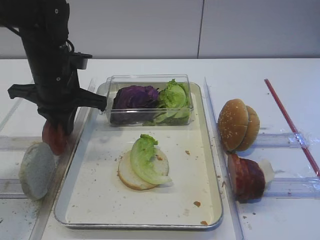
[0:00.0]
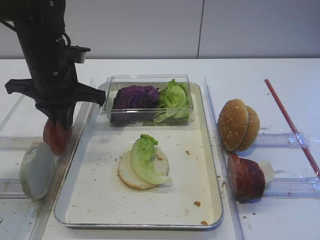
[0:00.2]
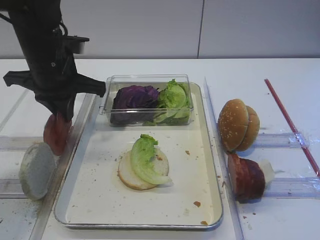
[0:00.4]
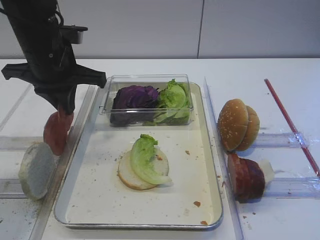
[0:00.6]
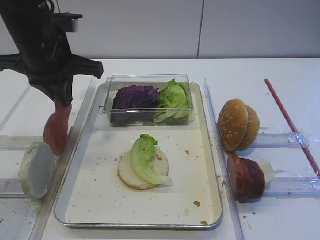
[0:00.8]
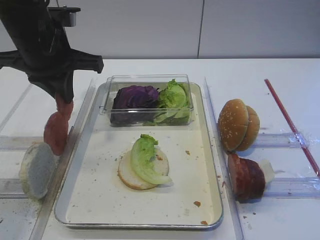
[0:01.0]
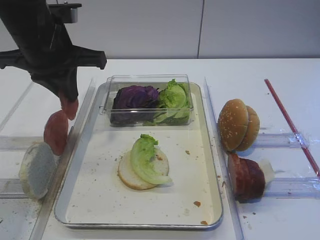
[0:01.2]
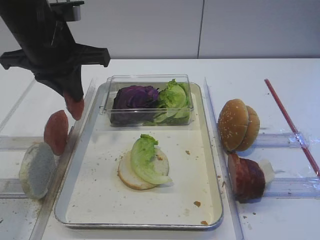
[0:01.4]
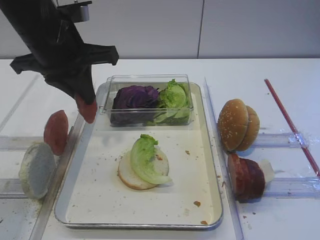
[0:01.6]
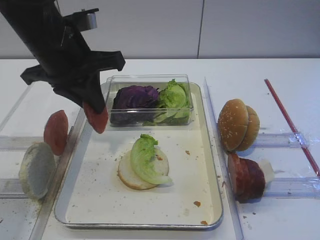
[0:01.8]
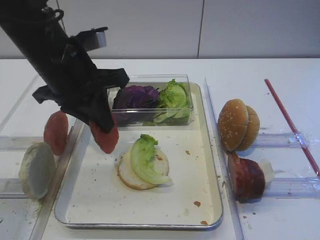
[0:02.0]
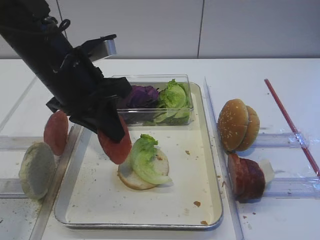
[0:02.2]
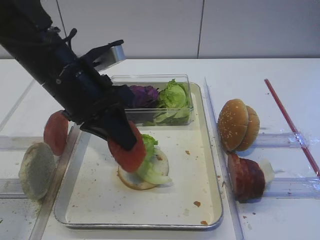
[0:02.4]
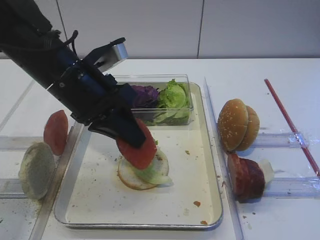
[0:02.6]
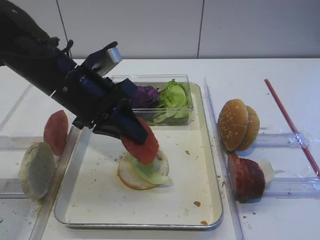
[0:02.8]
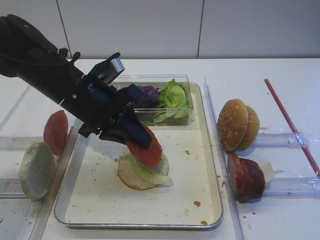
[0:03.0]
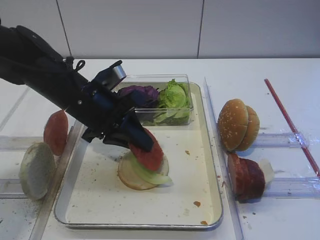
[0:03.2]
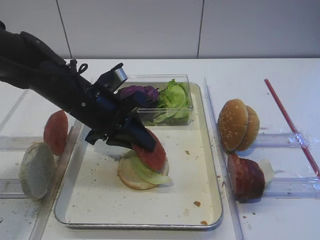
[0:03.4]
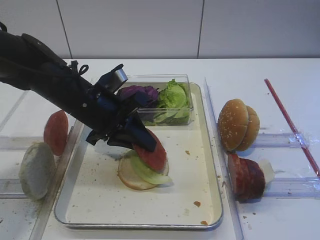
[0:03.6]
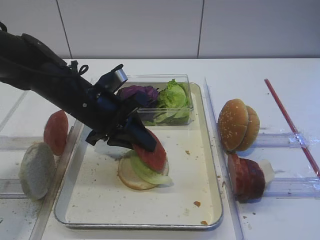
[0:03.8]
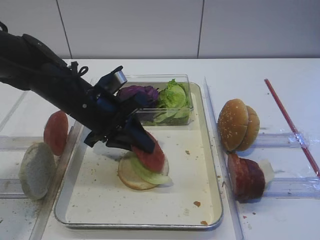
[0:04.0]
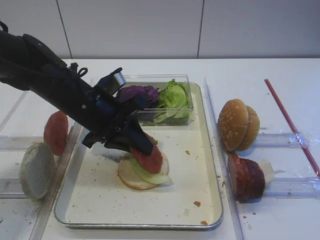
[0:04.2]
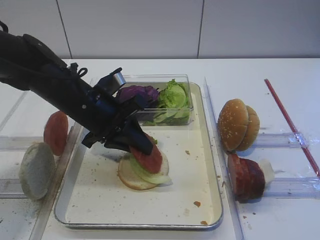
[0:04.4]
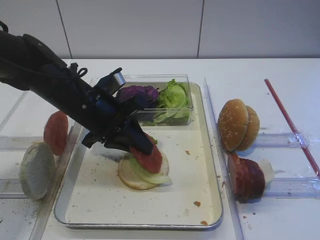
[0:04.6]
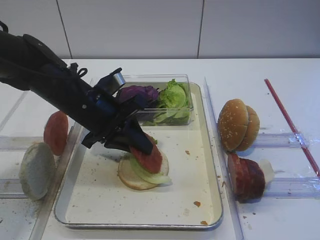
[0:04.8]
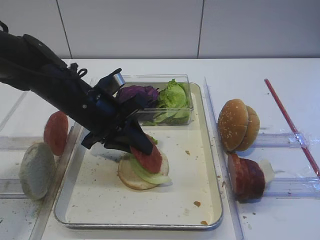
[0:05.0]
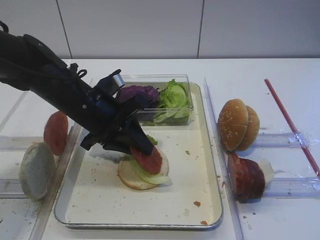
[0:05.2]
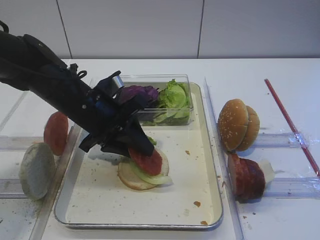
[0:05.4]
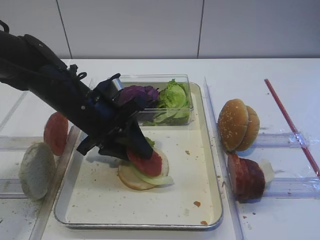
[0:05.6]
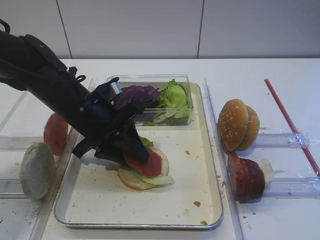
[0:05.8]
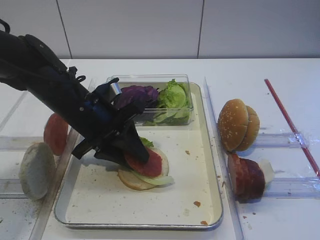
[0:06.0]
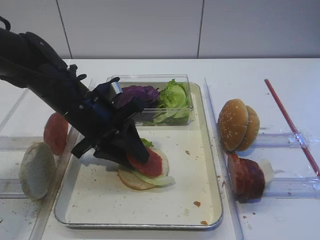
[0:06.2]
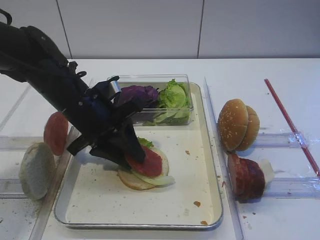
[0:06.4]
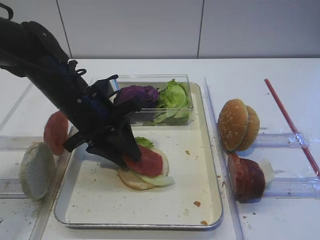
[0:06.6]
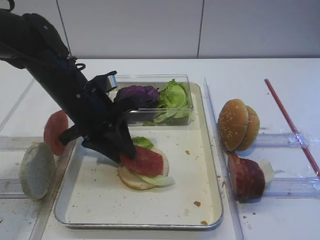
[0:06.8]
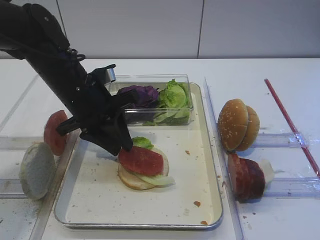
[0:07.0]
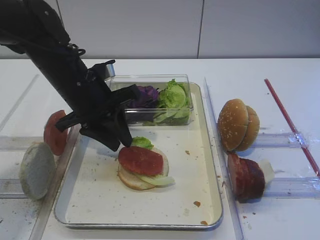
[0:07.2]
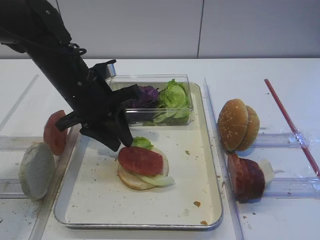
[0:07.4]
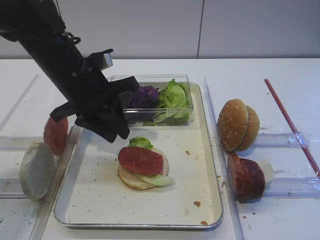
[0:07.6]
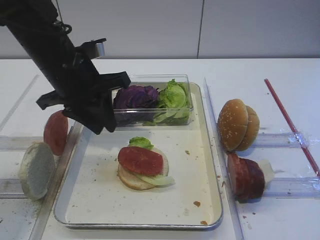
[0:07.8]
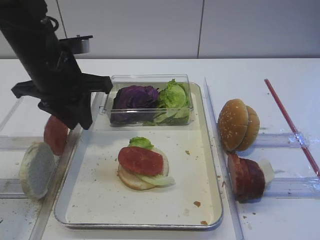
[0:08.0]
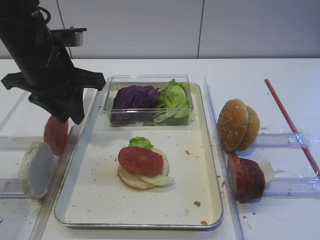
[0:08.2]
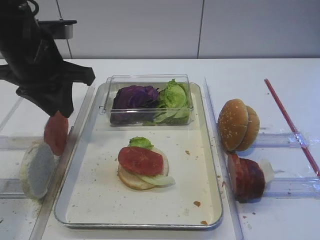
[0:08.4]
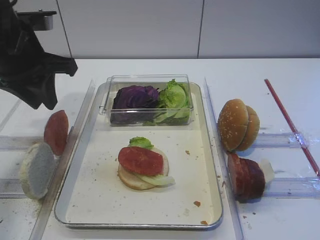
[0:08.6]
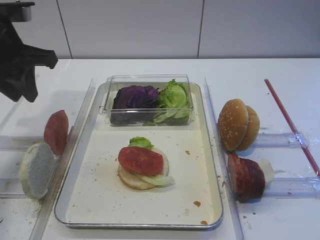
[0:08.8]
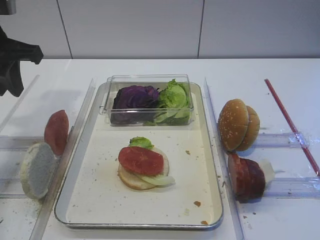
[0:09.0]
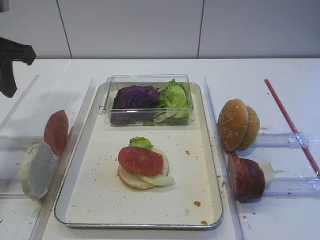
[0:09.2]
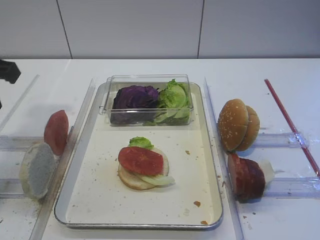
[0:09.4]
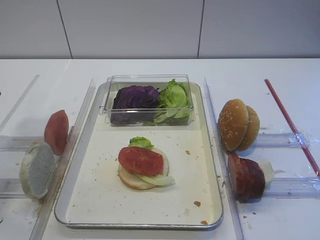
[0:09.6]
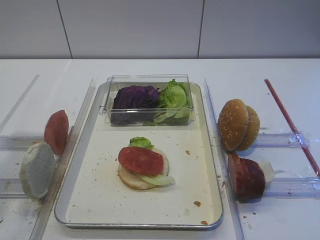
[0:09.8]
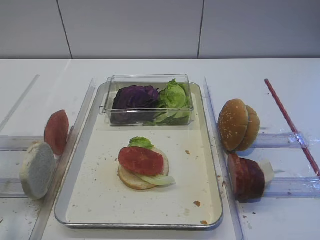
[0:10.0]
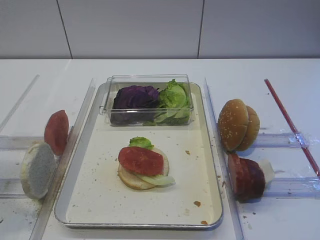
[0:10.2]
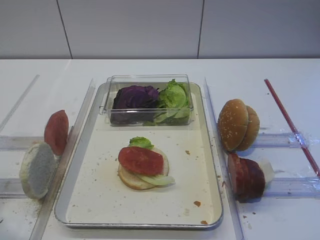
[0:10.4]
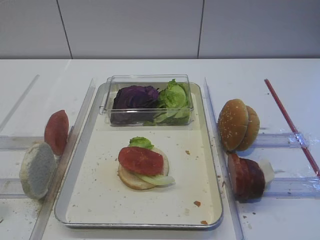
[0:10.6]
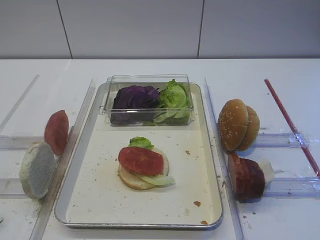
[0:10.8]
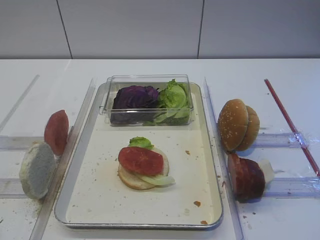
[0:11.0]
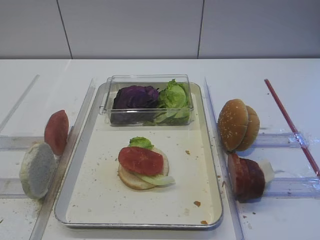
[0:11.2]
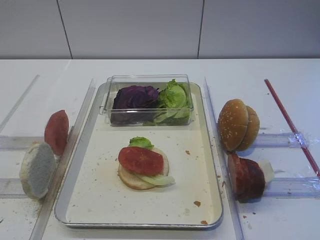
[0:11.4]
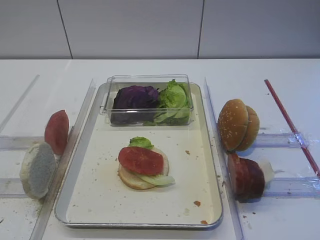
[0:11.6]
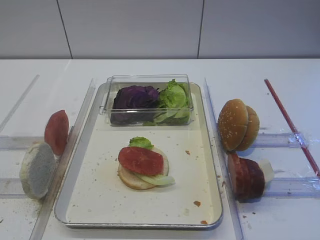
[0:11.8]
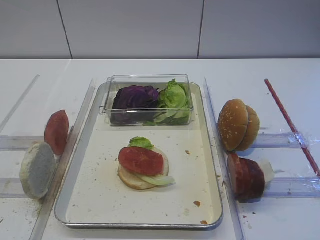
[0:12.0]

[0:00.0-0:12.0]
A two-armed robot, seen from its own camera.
Step, 0:00.8 to 0:07.2: Place the tomato slice on the lettuce leaf with the left gripper.
0:00.0 to 0:01.6: The left gripper heads upward, covering roughly 10 cm.
0:01.6 to 0:03.0: The left gripper travels downward by some 10 cm.
0:03.0 to 0:06.0: There are only small adjustments of the grippers.
0:06.0 to 0:07.6: The left gripper ends up roughly 5 cm from where it was.
0:07.6 to 0:09.0: The left gripper travels to the left and upward by some 15 cm.
0:09.0 to 0:10.4: The left gripper moves backward, some 20 cm.

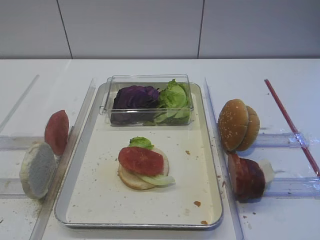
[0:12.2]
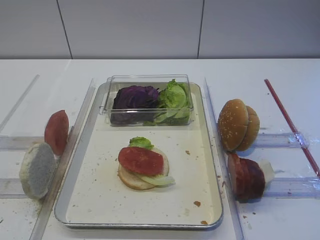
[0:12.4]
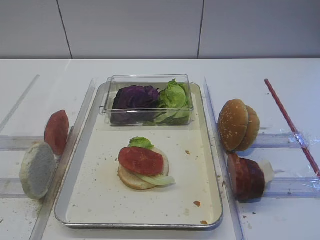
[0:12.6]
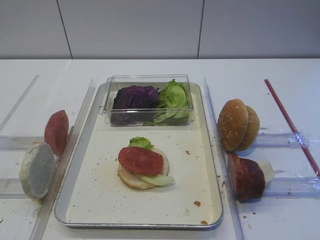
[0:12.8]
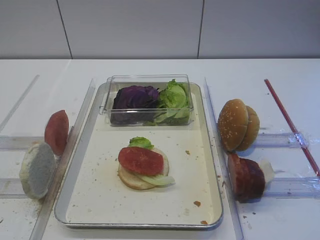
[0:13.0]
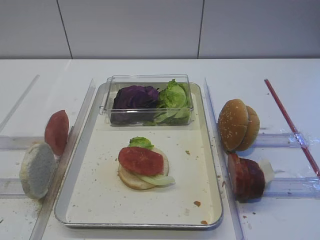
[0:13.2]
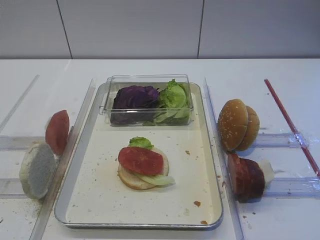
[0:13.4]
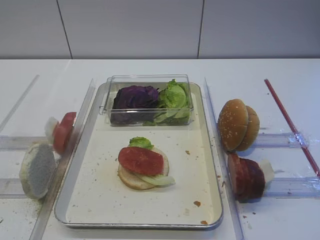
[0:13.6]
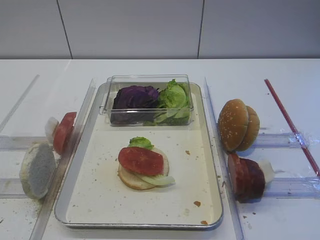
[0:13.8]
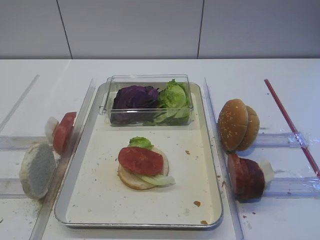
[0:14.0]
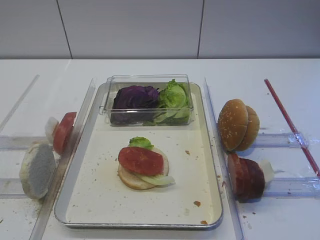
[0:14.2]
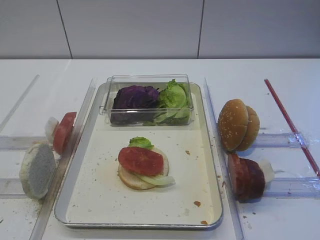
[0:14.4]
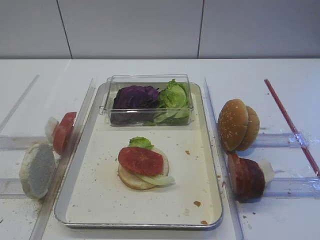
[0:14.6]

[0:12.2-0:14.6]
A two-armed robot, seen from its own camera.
0:13.4 to 0:14.6: The two grippers keep their place.

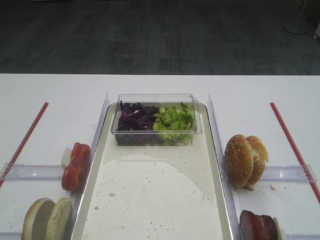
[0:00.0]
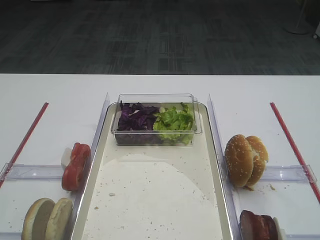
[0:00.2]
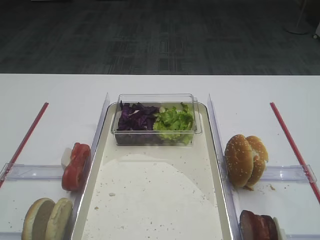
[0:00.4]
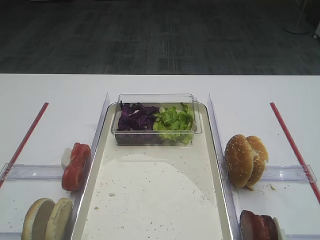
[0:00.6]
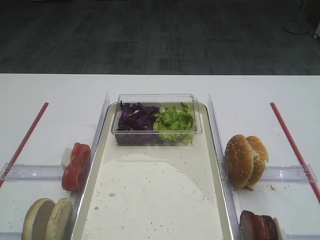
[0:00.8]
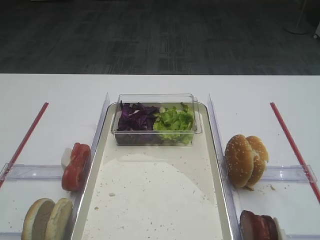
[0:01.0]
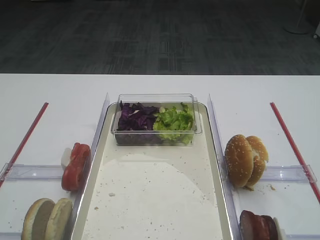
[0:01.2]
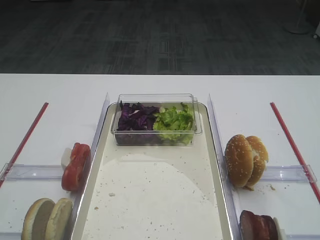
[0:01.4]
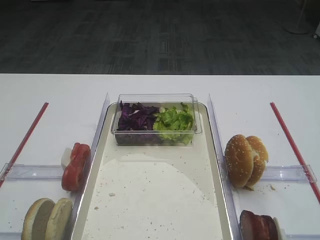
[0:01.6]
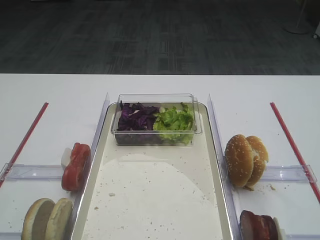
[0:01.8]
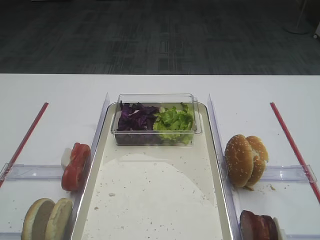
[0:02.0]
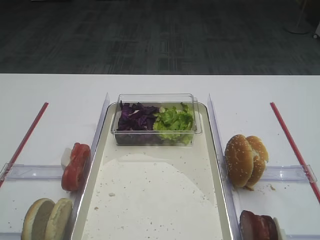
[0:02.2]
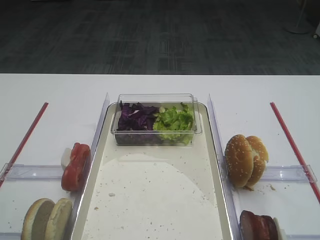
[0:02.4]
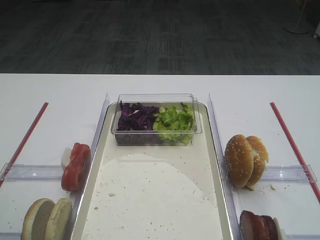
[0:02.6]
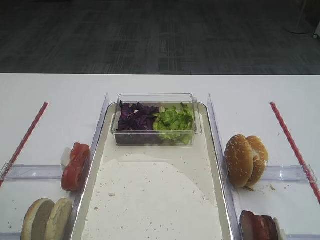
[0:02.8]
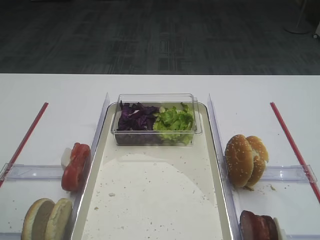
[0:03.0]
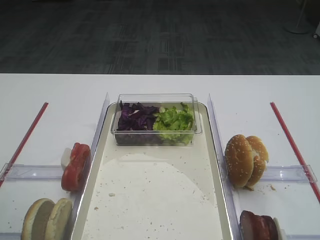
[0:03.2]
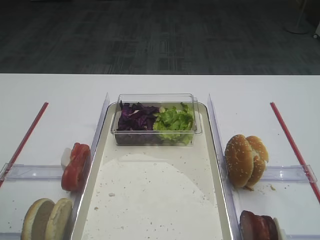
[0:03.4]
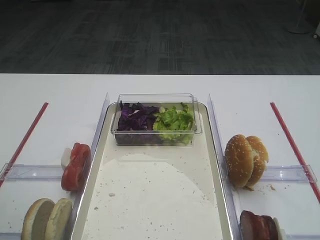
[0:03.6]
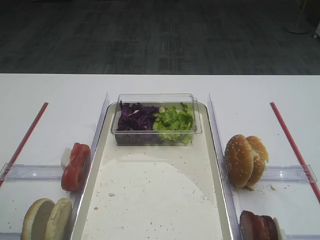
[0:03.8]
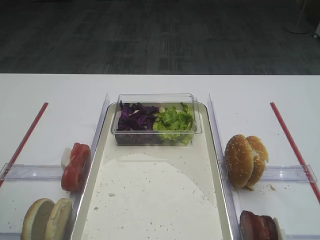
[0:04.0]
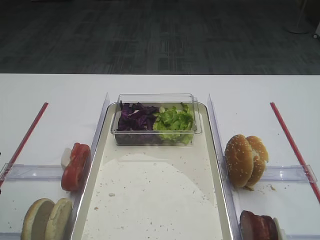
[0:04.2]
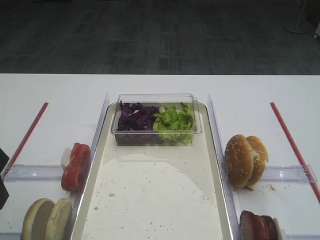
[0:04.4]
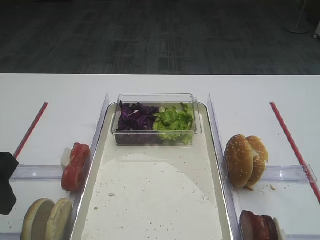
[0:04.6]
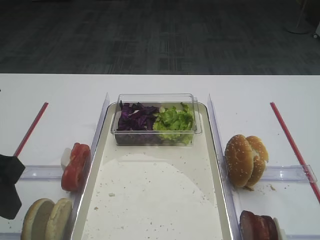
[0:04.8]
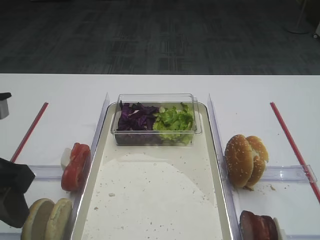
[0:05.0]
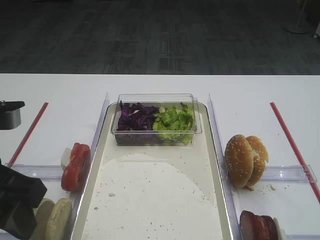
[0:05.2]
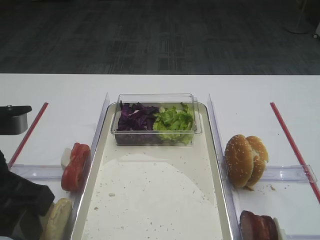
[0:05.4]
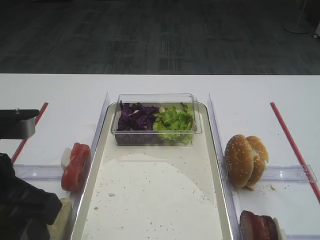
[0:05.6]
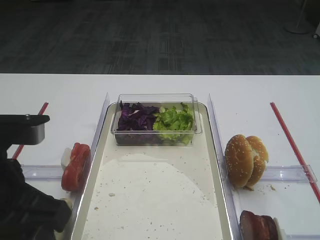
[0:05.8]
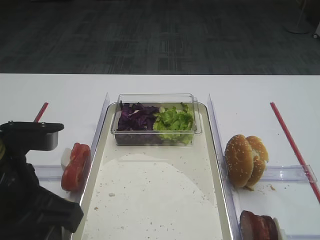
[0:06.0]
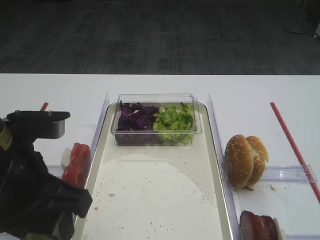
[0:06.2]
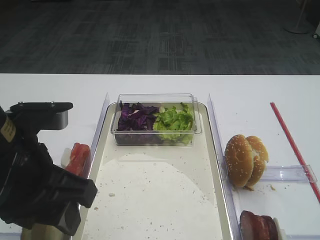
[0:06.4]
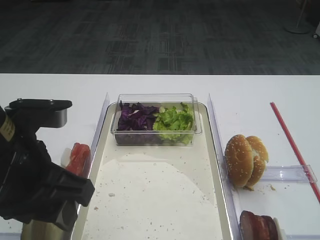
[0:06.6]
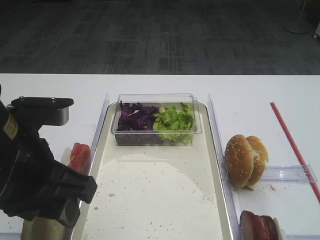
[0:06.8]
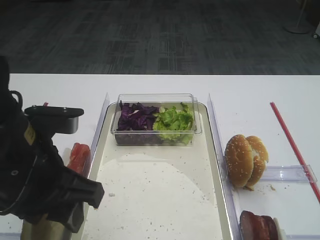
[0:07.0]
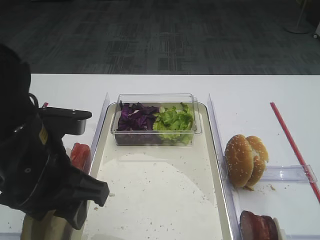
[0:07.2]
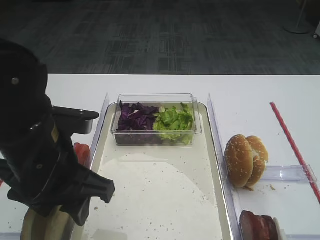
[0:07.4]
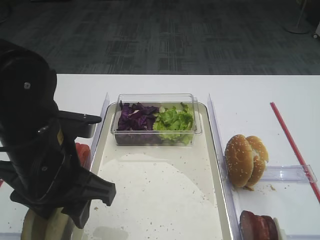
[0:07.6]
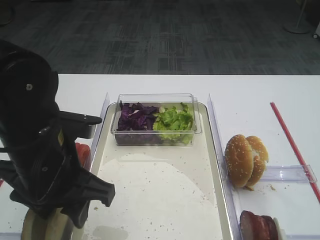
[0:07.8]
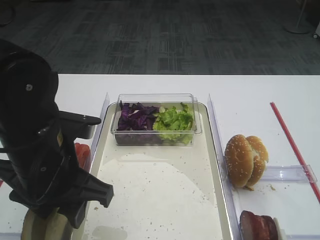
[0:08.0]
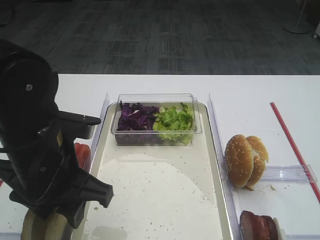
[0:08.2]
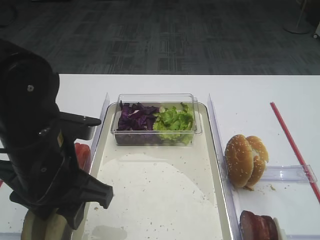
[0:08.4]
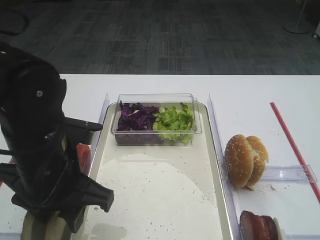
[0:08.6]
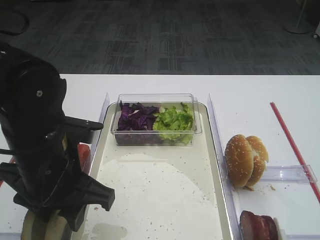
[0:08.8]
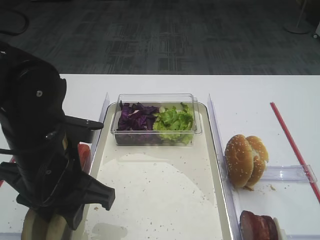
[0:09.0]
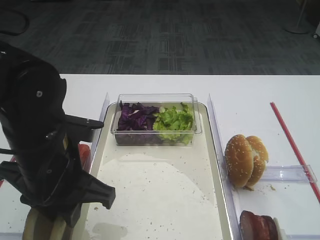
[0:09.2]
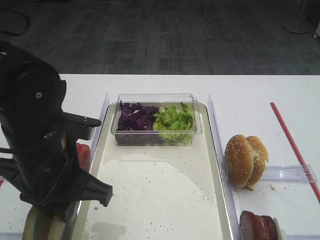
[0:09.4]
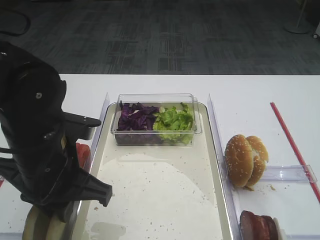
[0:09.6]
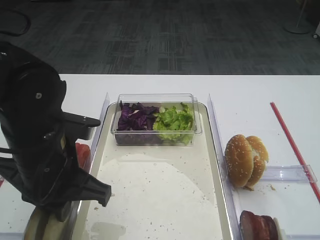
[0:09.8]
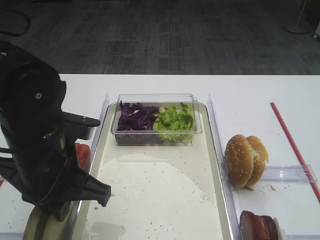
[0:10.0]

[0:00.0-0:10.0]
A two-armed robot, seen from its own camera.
0:04.2 to 0:05.8: The left gripper heads to the right, covering about 10 cm.
0:05.8 to 0:07.2: The left gripper shifts by about 5 cm.
0:07.2 to 0:08.6: The grippers make only small movements.
0:08.6 to 0:10.0: The left gripper closes its fingers.
